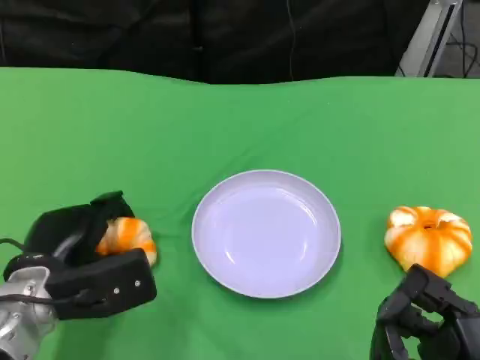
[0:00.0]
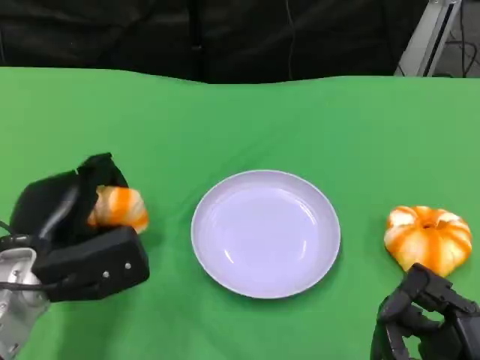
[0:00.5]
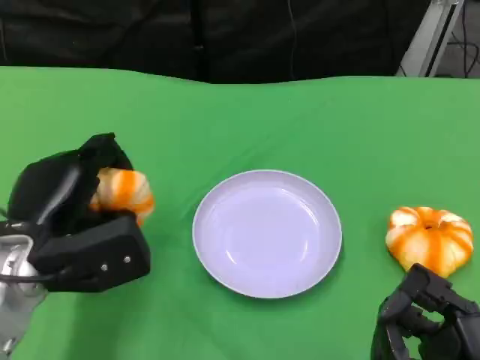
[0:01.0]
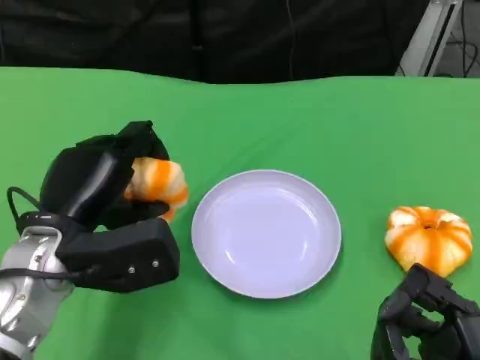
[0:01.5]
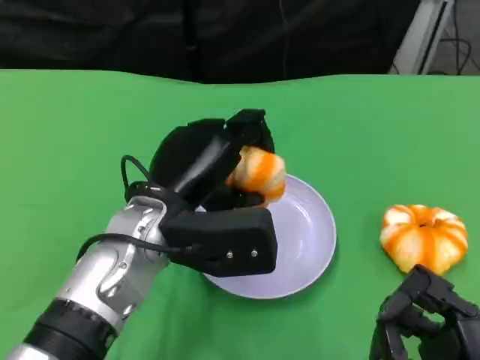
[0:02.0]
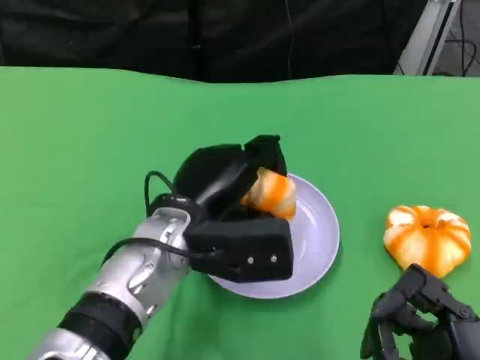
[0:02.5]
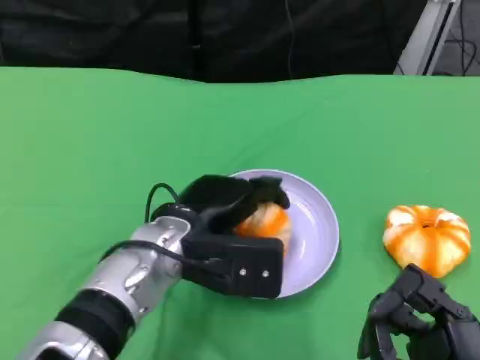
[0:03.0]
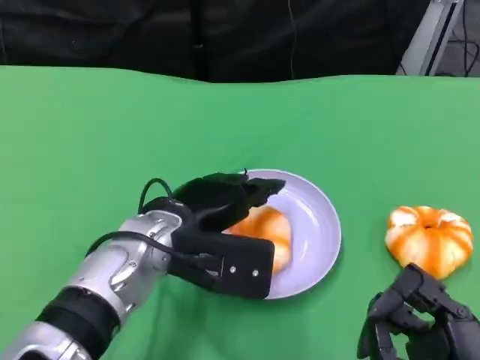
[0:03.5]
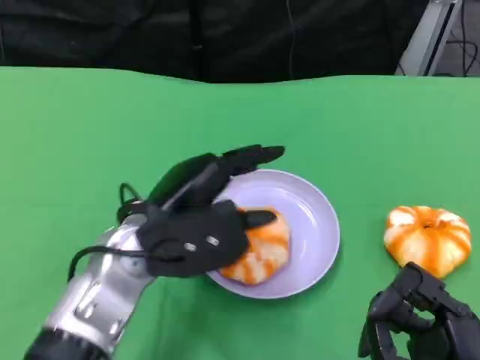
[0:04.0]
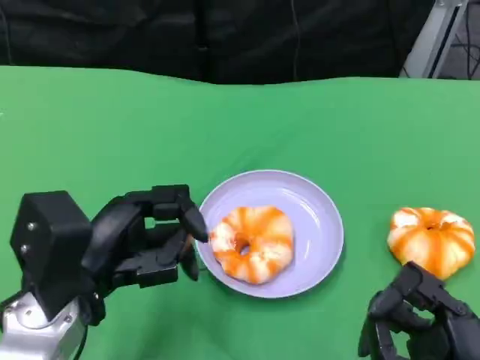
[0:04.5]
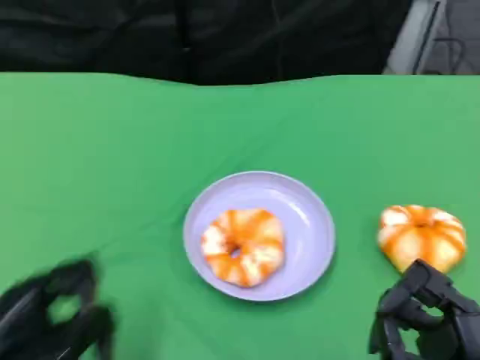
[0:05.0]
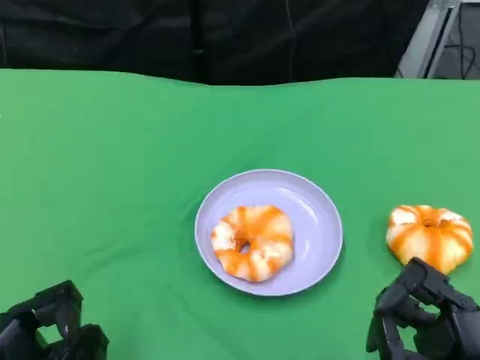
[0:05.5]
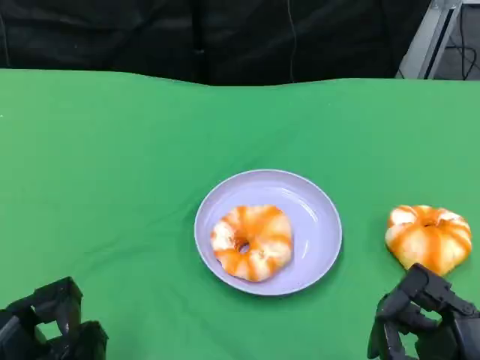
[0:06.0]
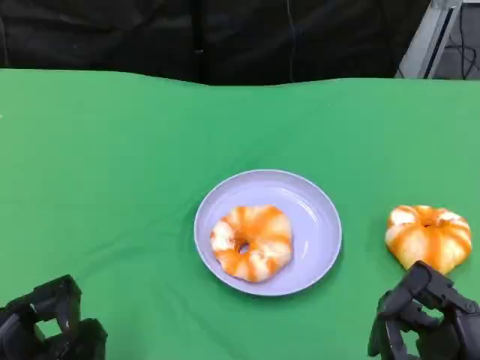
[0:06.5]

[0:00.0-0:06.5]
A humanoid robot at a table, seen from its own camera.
Task of the whole recording: Grasp the bread from the table and place it into the plate.
0:00.0 to 0:02.0: The left hand travels to the right and upward by some 15 cm.
0:02.0 to 0:04.5: The left hand travels to the left and backward by about 10 cm.
0:04.5 to 0:06.5: The left hand heads backward, to the left and downward, covering some 15 cm.

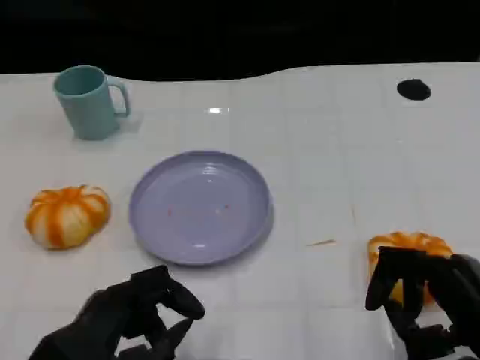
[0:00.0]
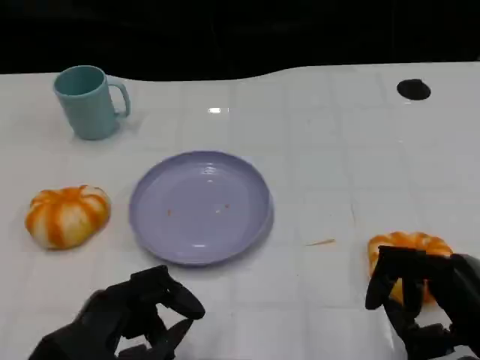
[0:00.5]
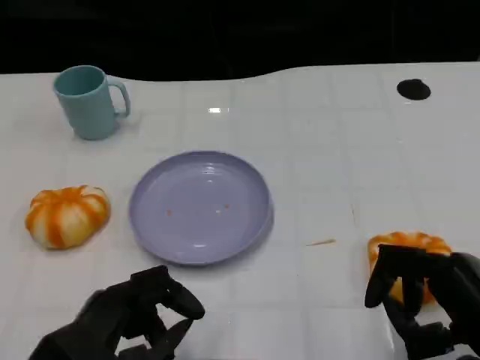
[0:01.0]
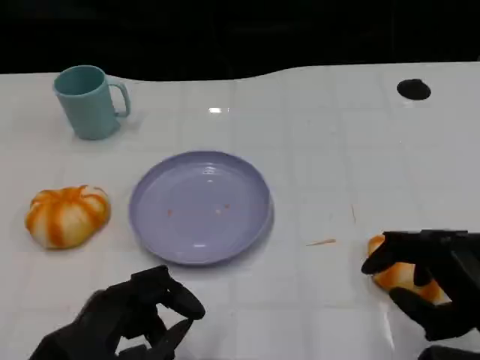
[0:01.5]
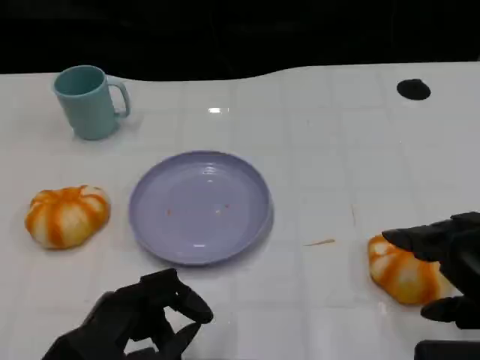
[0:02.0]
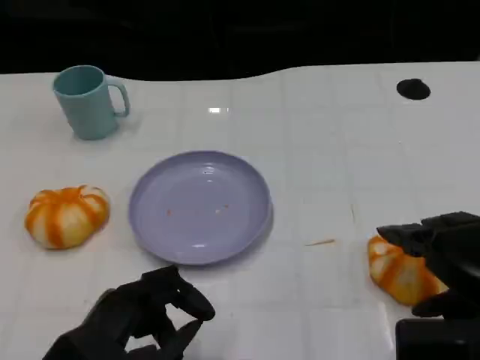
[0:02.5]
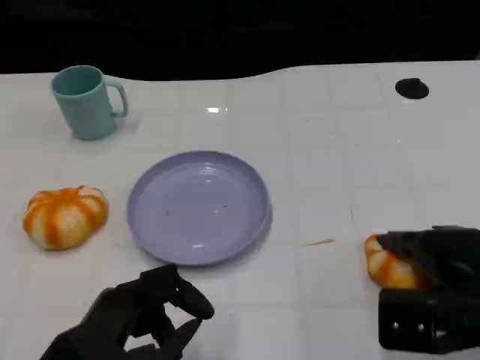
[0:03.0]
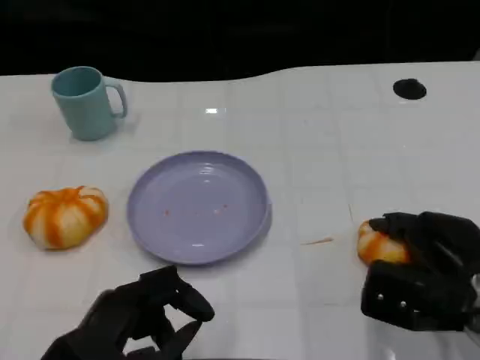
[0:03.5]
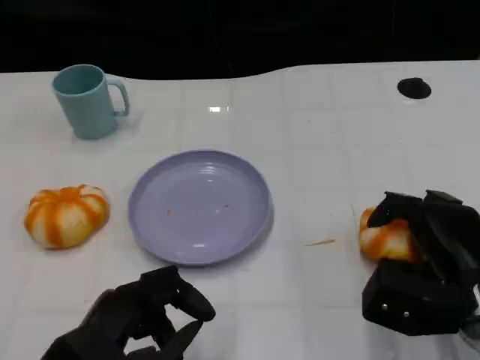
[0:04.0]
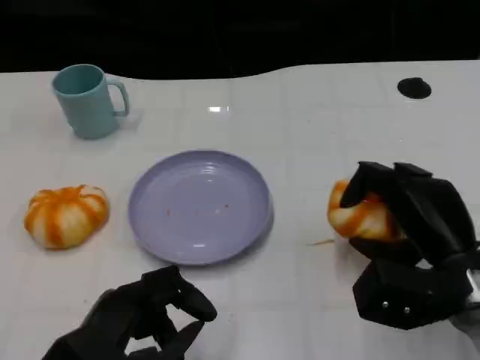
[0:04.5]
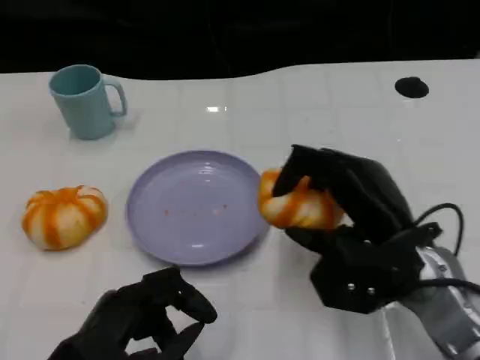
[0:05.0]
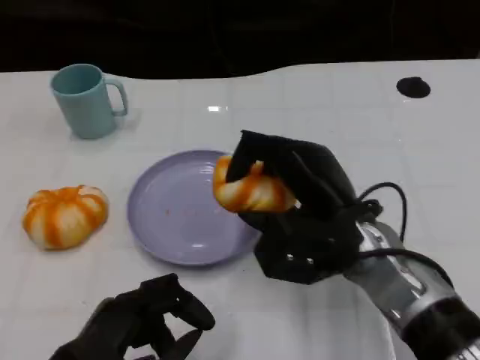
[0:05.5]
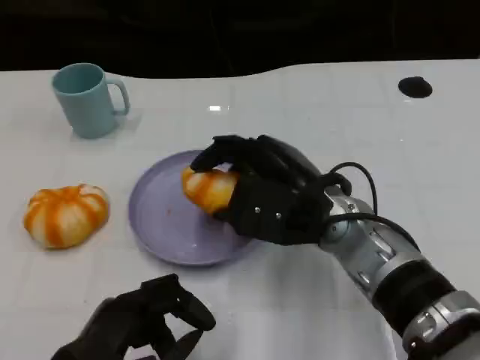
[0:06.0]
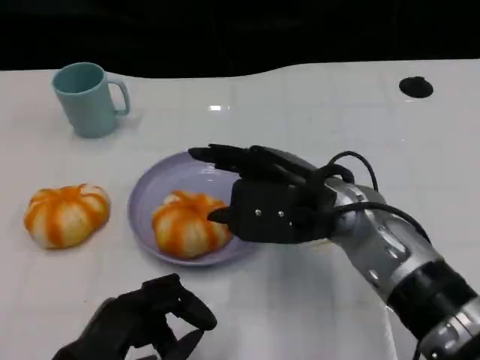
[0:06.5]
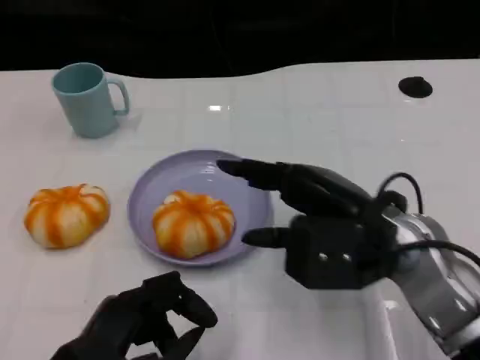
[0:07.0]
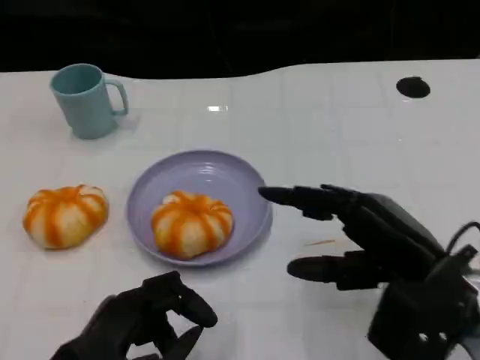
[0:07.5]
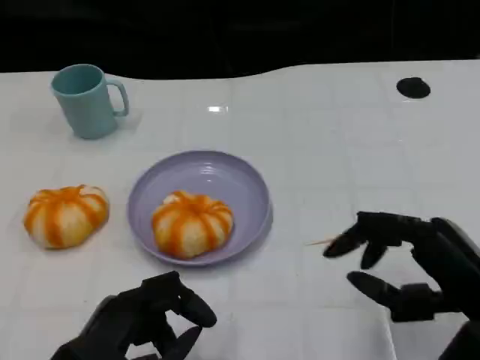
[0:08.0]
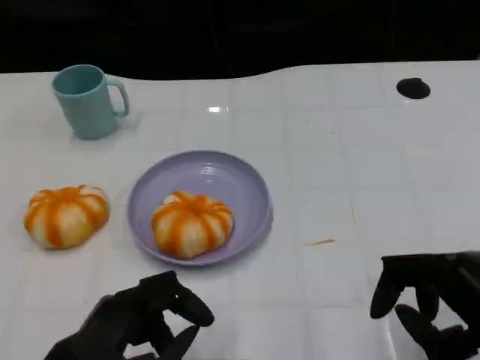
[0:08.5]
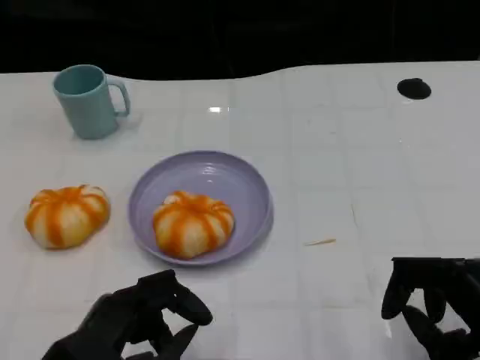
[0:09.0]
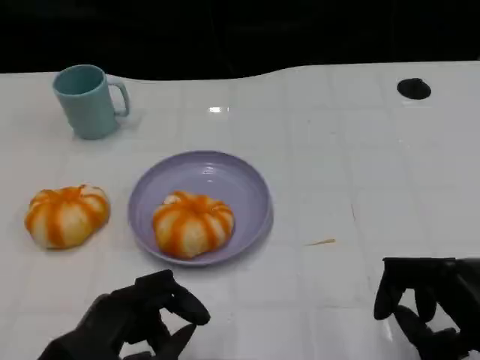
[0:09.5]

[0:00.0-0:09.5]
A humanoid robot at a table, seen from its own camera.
Task of the whole recording: Grasp the bread from the table and place it into the plate.
0:00.0 to 0:02.0: The right hand is displaced upward by approximately 5 cm.
0:02.0 to 0:04.0: The right hand heads downward and forward, covering about 15 cm.
0:04.0 to 0:05.5: The right hand is displaced to the left and upward by roughly 15 cm.
0:05.5 to 0:07.5: The right hand heads to the right and backward, covering some 10 cm.
0:07.5 to 0:09.5: The right hand moves backward and to the right, about 10 cm.

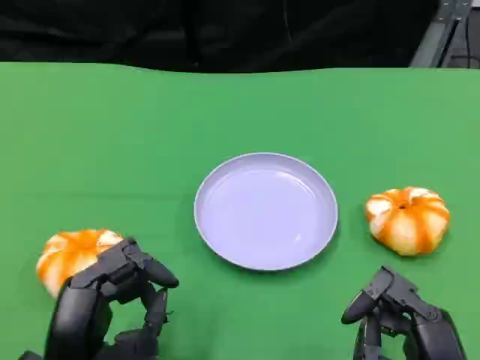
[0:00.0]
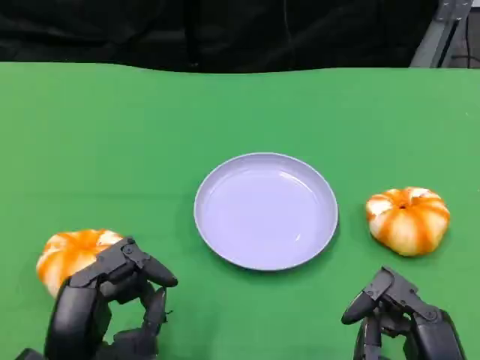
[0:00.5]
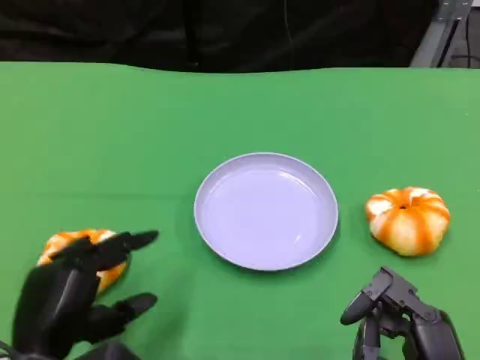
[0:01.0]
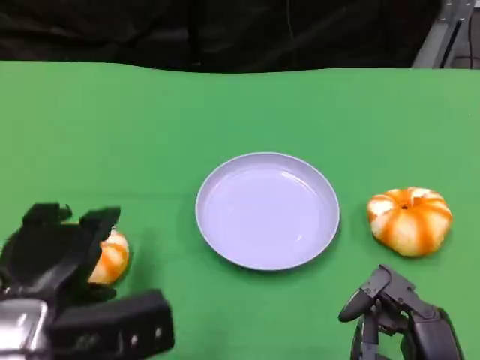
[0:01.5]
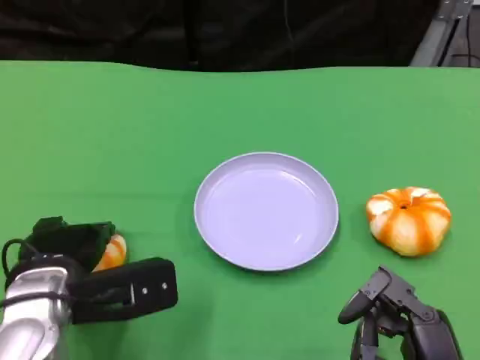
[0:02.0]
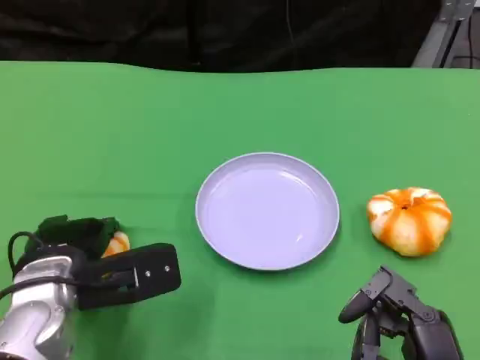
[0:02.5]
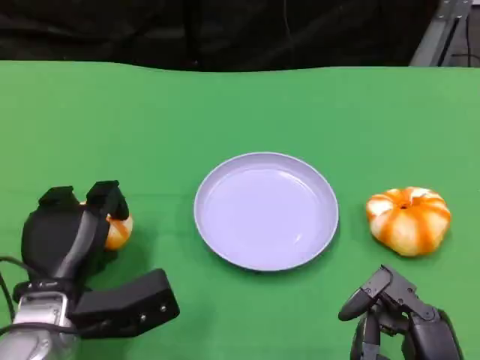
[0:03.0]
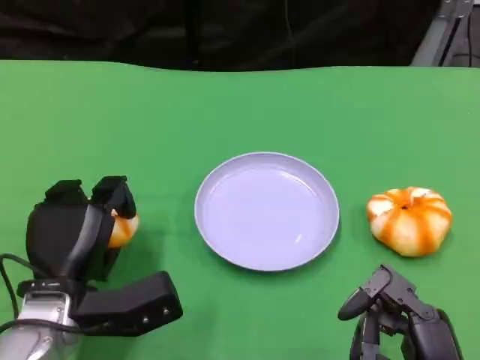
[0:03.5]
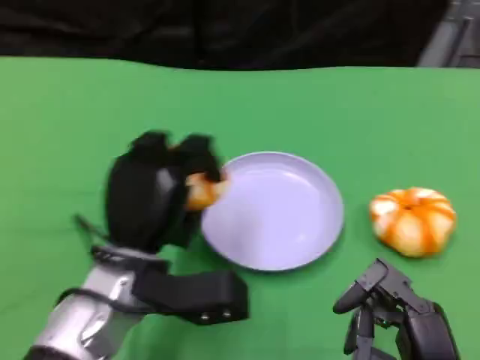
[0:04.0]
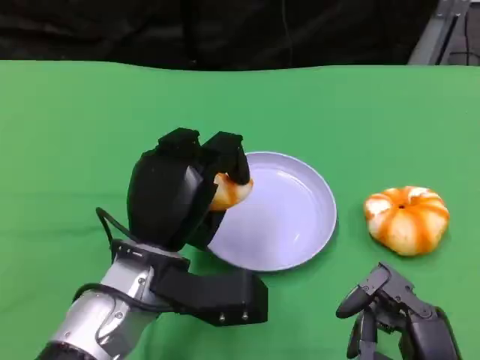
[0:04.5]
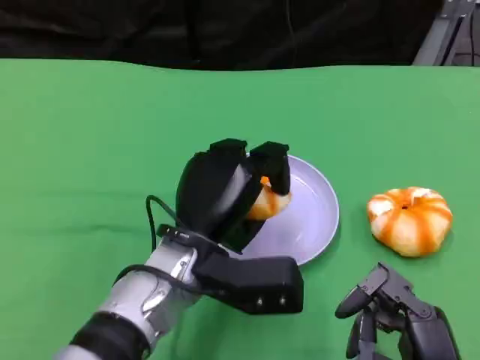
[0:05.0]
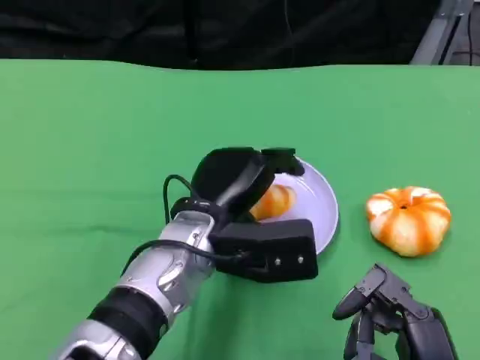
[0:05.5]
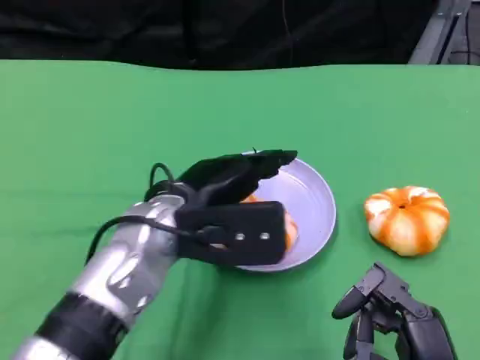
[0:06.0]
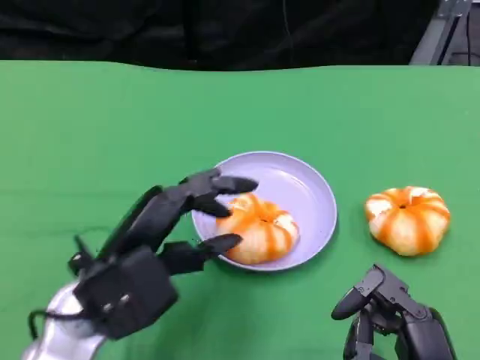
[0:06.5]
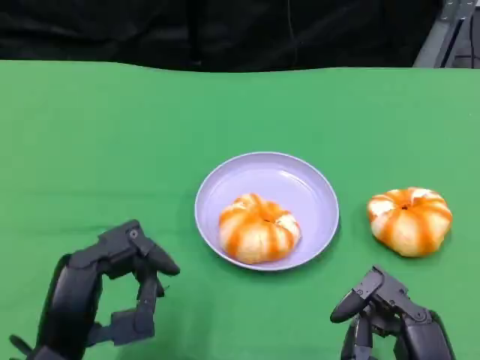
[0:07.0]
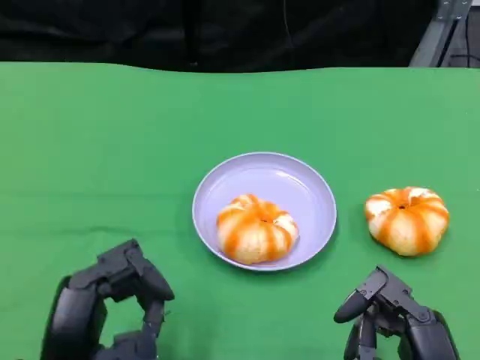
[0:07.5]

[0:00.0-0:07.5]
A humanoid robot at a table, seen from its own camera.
Task of the whole recording: Grasp the bread from the table and place it into the plate.
0:00.0 to 0:02.0: The left hand moves forward, some 10 cm.
0:02.0 to 0:04.0: The left hand shifts roughly 10 cm to the right.
0:04.0 to 0:05.5: The left hand travels to the right by about 5 cm.
0:05.5 to 0:07.5: The left hand moves backward and to the left, roughly 20 cm.

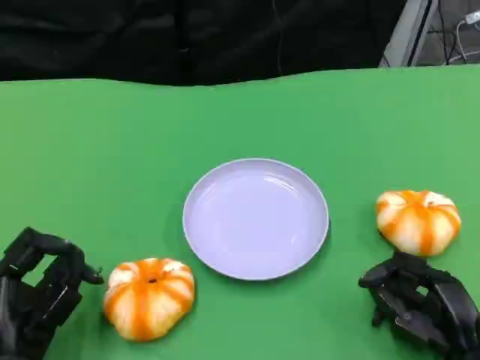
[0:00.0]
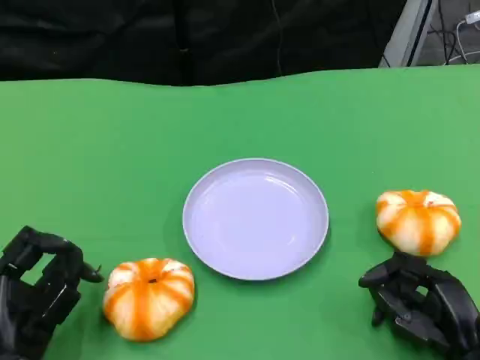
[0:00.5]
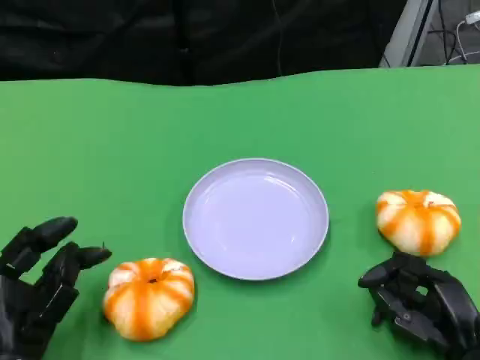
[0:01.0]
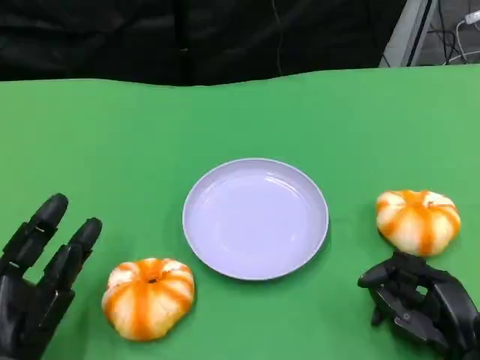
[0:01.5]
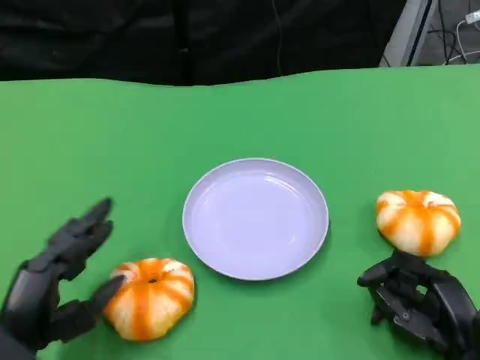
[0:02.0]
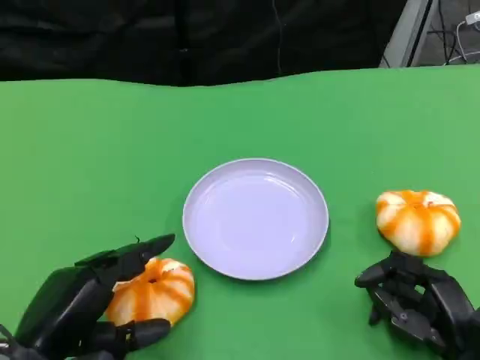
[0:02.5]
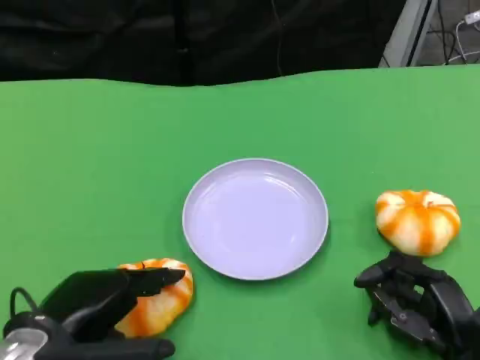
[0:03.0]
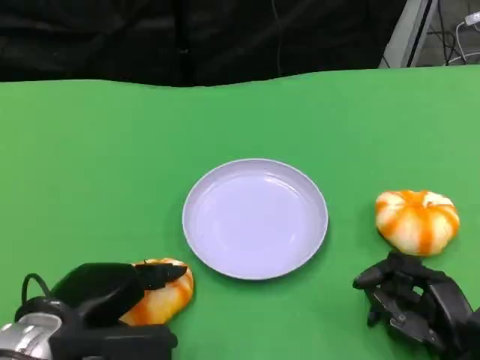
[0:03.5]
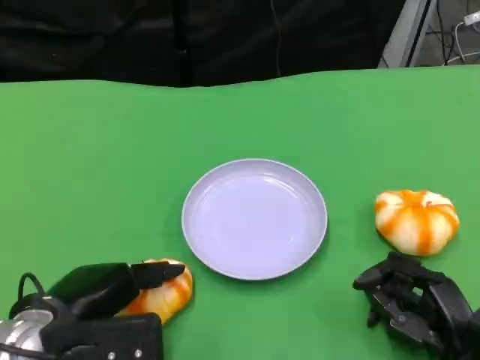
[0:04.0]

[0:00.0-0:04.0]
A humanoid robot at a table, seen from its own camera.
Task of the whole recording: Grasp the bread from the table and place it into the plate.
0:02.0 to 0:04.0: The left hand changes place by about 5 cm.
